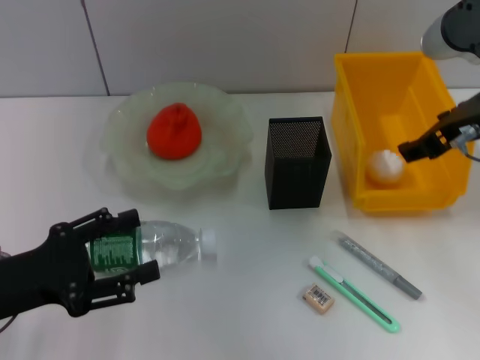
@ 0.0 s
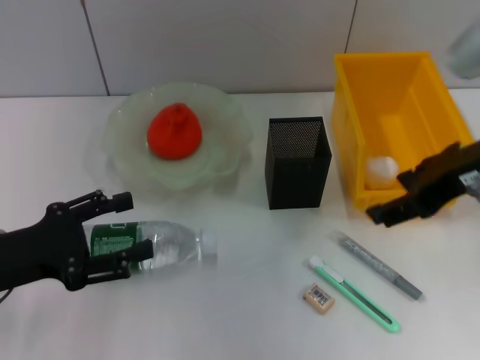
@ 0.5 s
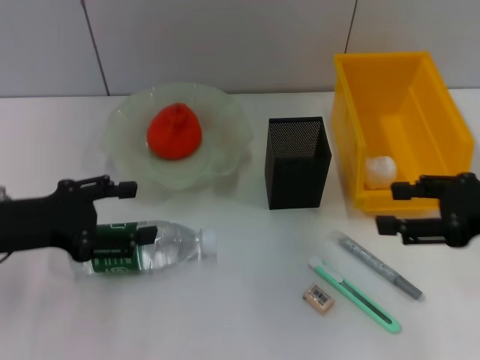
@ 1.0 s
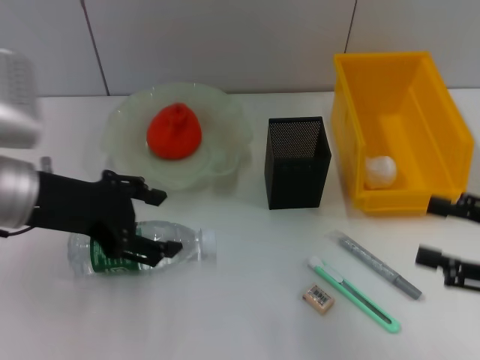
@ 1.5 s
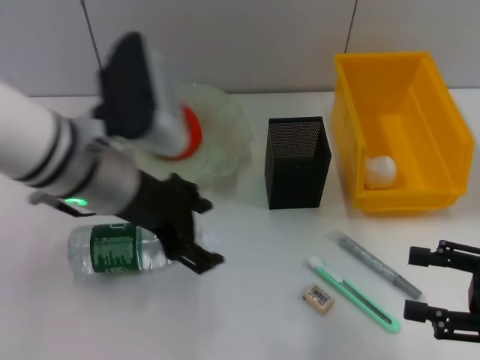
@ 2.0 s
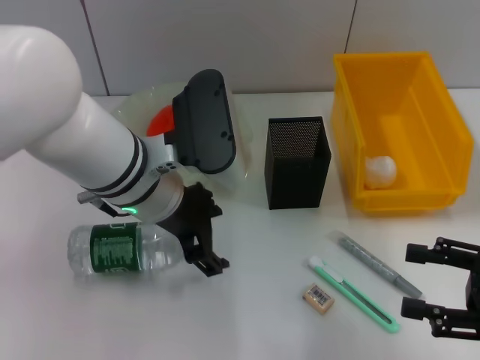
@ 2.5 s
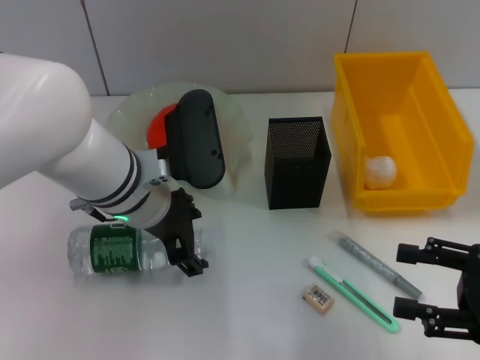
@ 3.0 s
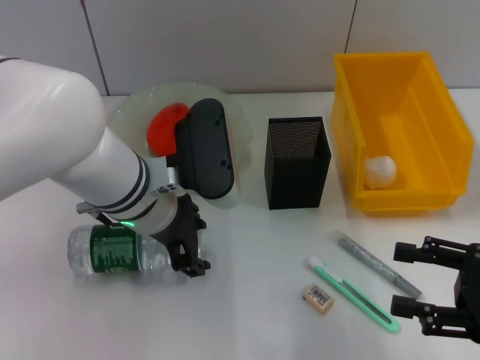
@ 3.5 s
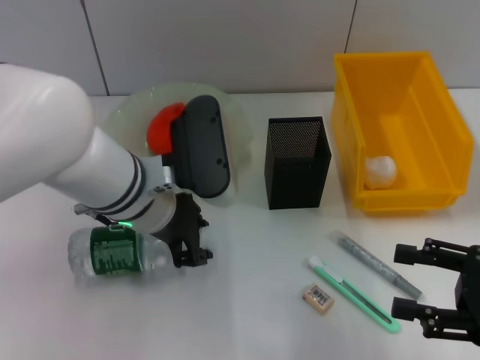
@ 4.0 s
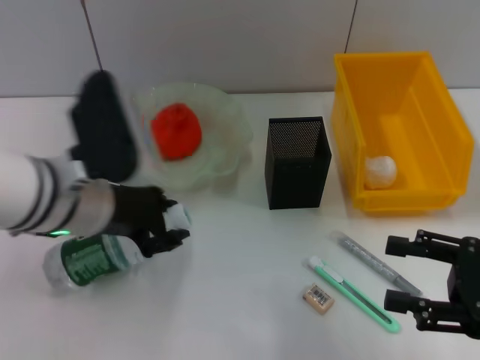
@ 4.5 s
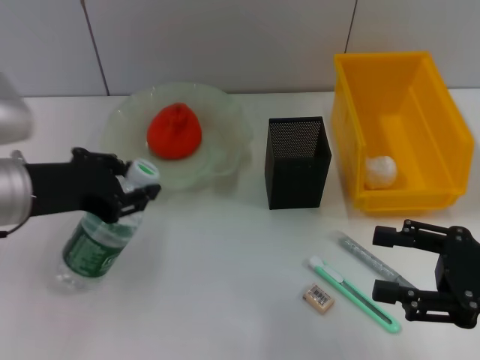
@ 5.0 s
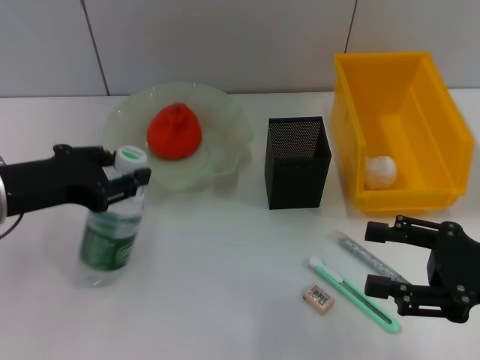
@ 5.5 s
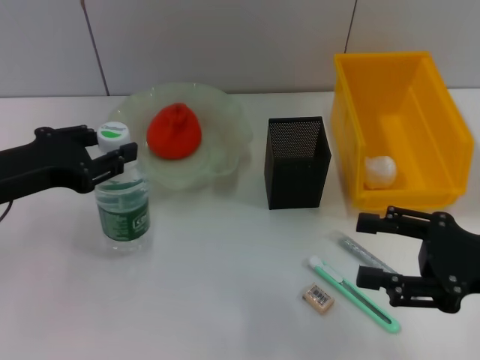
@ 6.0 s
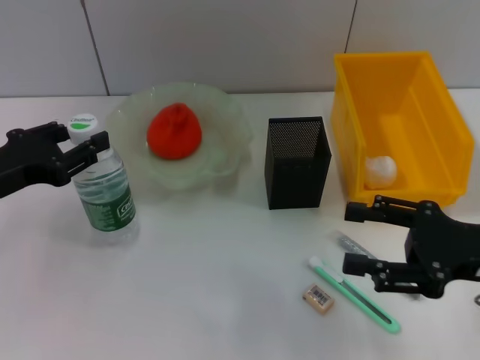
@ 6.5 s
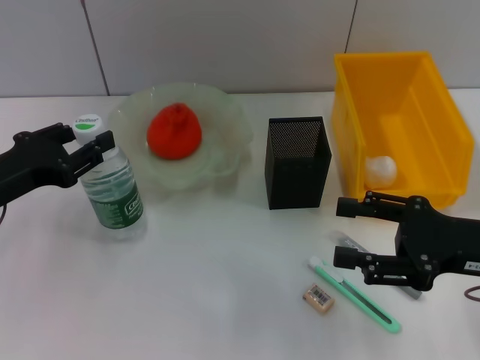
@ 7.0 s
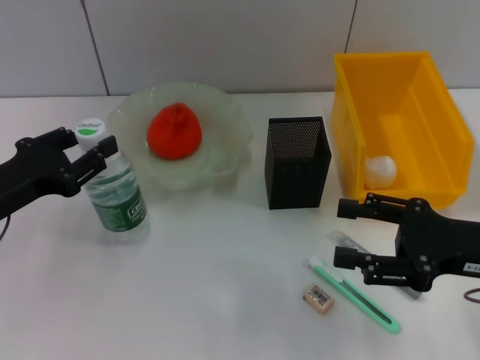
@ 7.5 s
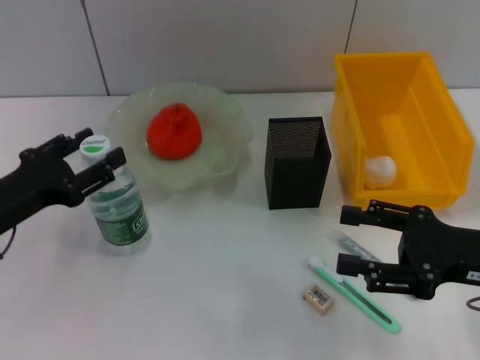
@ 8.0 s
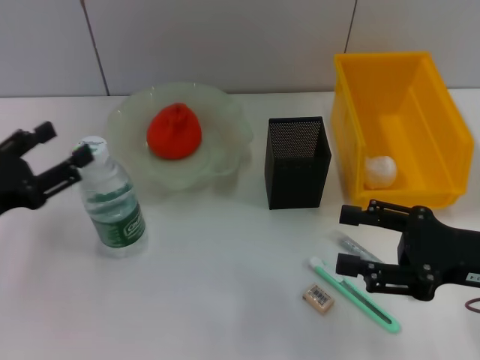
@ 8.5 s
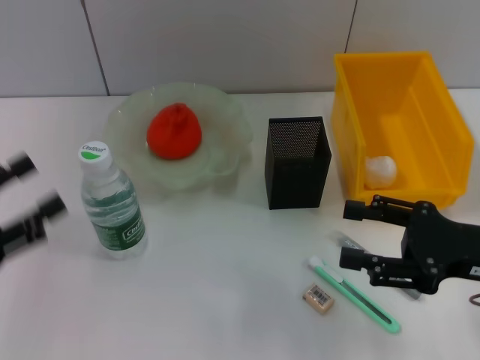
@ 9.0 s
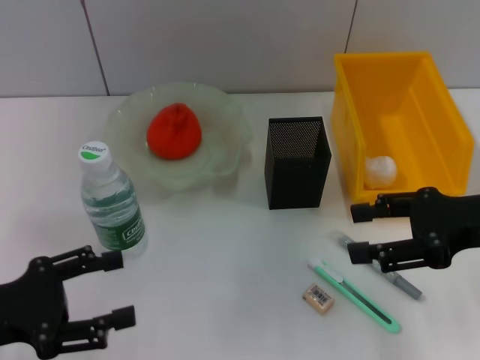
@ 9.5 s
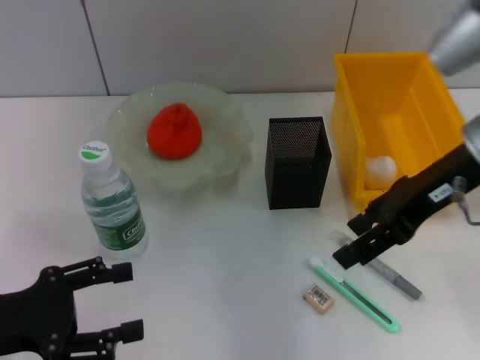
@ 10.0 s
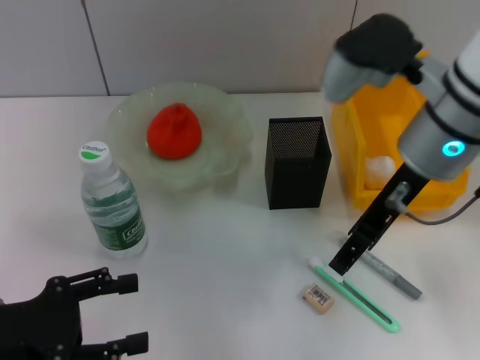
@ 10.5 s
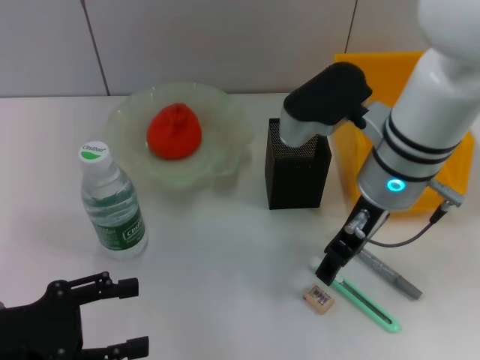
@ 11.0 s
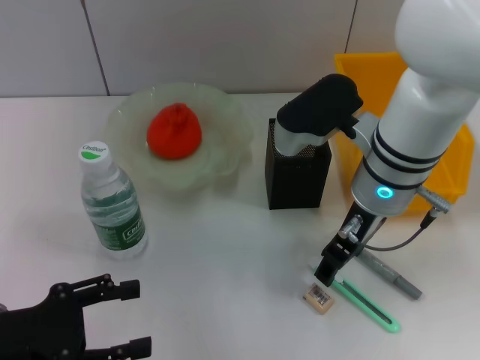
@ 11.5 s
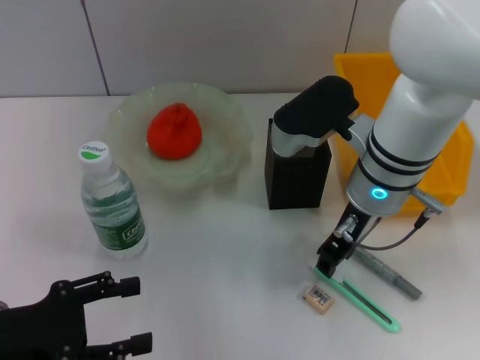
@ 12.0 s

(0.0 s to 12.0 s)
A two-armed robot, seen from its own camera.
Step, 0.0 s - 4.0 s: Grab the water bottle with the left hand.
Step, 4.5 s - 8.0 s: Place the water bottle on the table with the left hand.
0.0 s - 2.0 s: The left gripper moves to the right, forward and upward, about 20 cm. The right gripper heads backward, downward and to the right, covering some 20 cm.
2.0 s - 4.0 s: The left gripper shifts roughly 5 cm downward, and closes its fingers.
4.0 s - 6.0 s: The left gripper moves to the left, some 15 cm.
6.0 s - 8.0 s: The left gripper is displaced downward by approximately 5 cm.
8.0 s - 10.0 s: The right gripper heads upward, forward and to the left, covering roughly 15 cm. The left gripper is displaced backward by about 5 cm.
10.0 s - 12.0 s: The right gripper heads to the left and downward, covering roughly 10 cm, and closes its fingers.

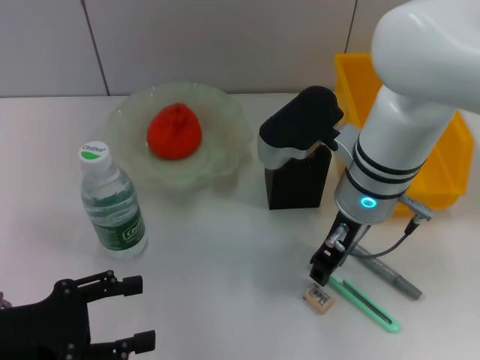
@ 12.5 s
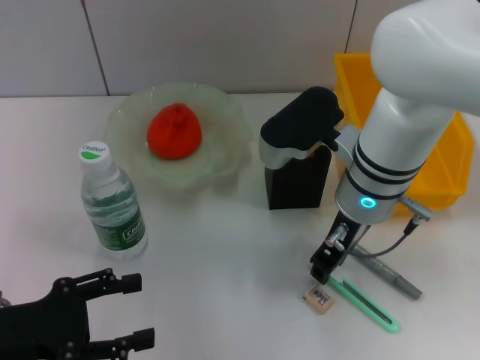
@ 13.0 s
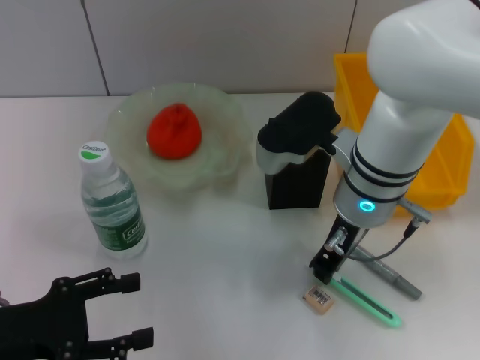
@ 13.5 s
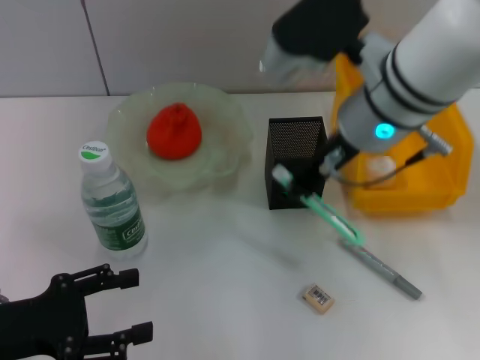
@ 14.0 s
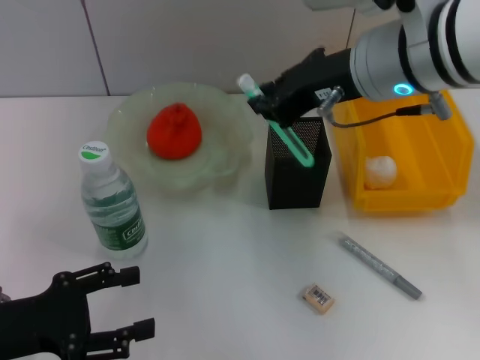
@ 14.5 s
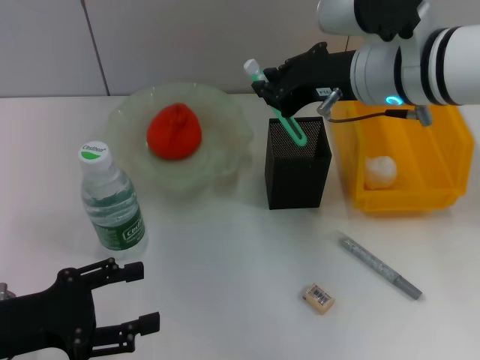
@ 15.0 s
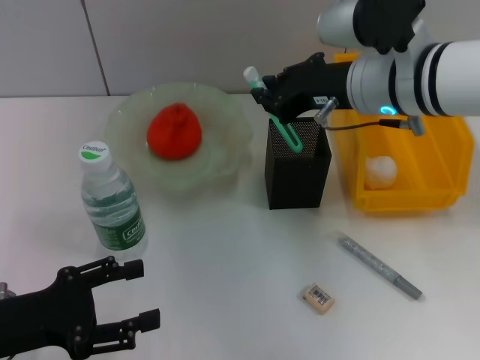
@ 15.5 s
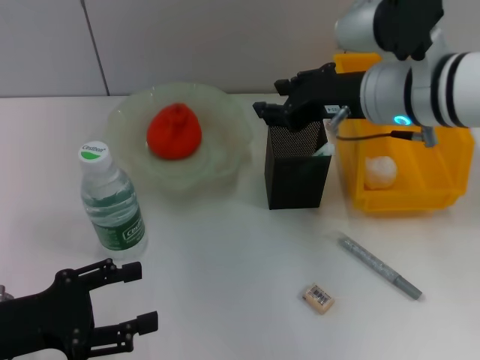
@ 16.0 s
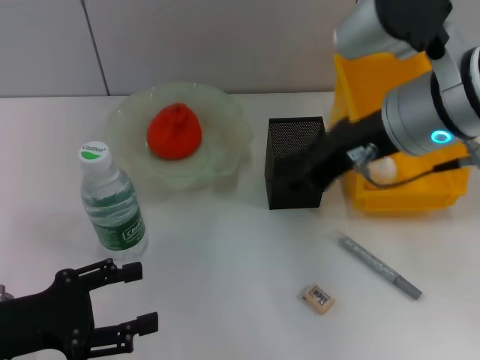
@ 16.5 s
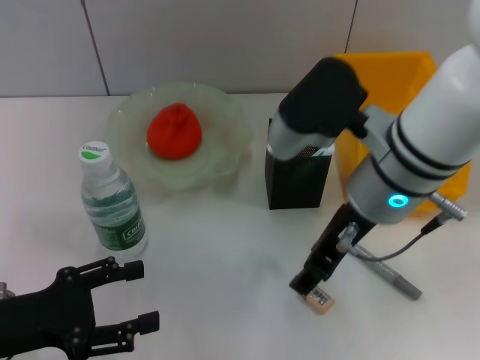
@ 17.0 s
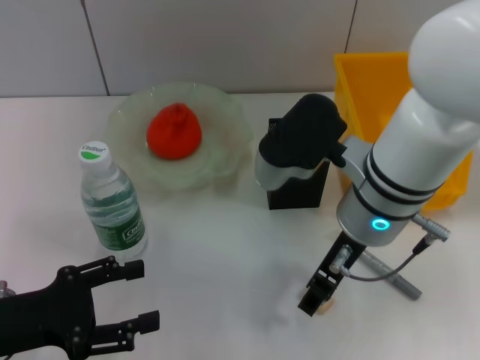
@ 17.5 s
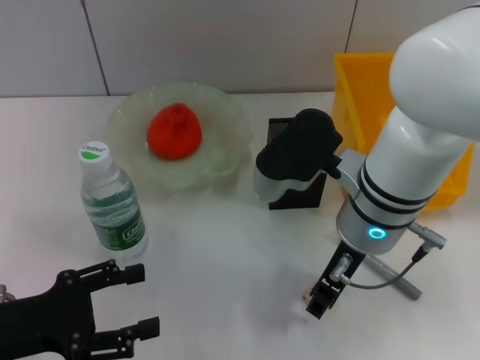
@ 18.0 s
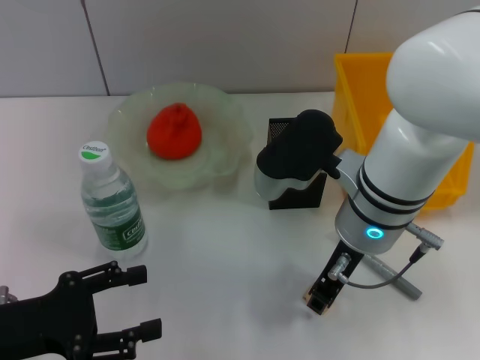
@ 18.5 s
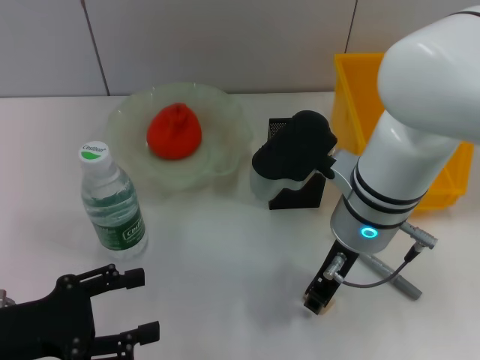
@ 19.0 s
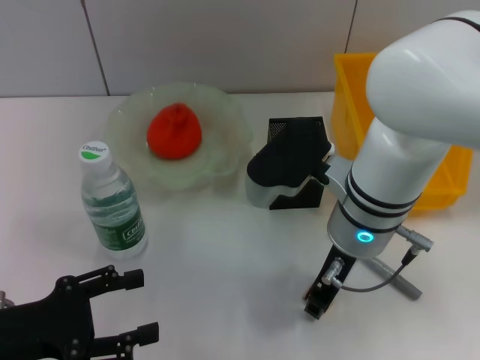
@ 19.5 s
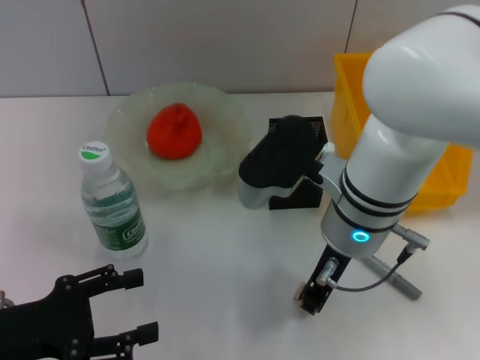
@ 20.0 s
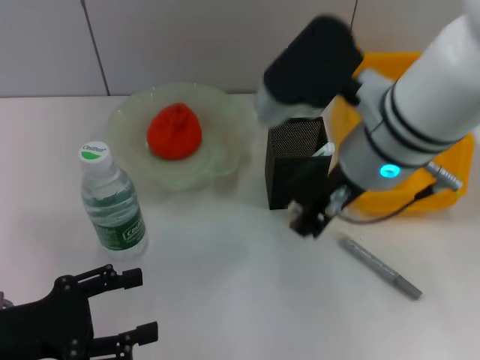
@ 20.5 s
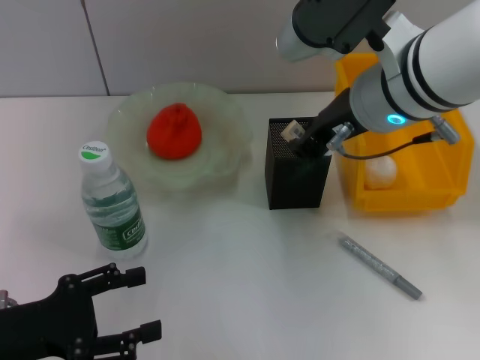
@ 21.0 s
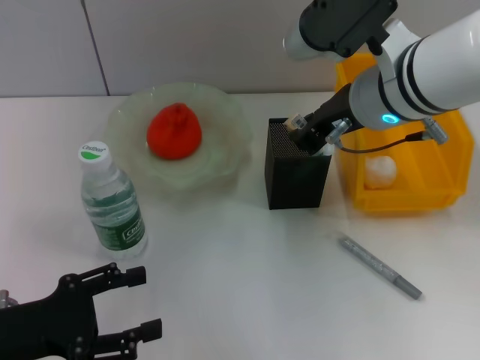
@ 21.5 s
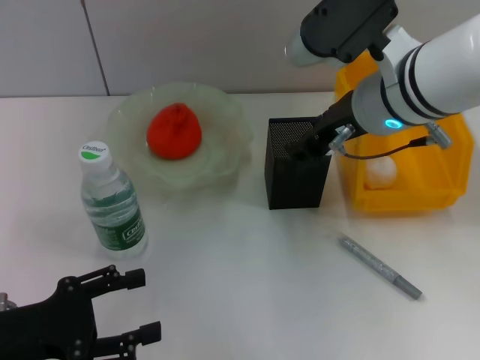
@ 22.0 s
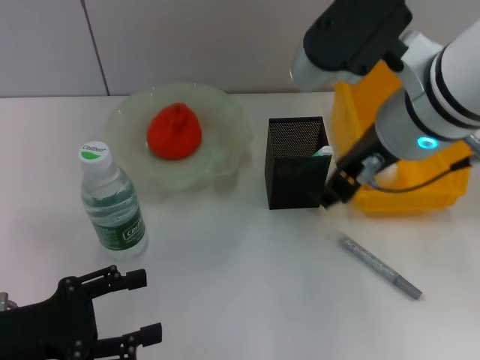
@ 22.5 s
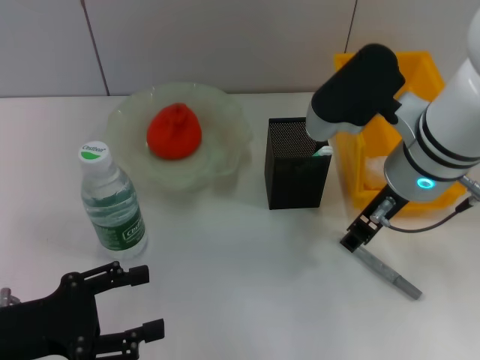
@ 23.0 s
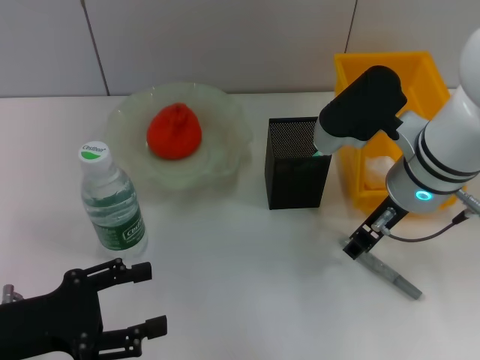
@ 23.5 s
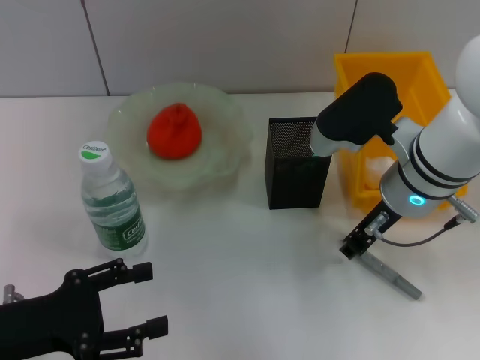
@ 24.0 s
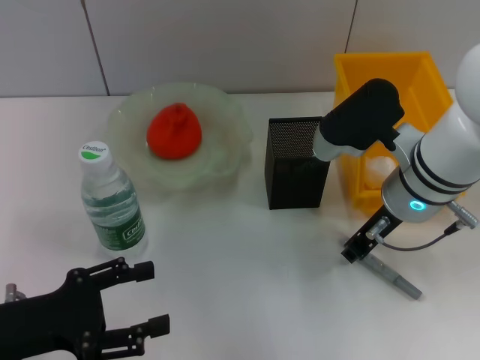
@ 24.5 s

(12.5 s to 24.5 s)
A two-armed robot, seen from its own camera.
Step, 13.5 s - 15.5 s: Place the blue utility knife into the pen holder with the right hand.
Step, 16.0 s - 19.5 s: Grab the eraser with the right hand.
Step, 20.5 s - 21.5 s: Put the eraser into the pen holder with the right hand.
12.5 s - 14.5 s: The right gripper shifts some 10 cm upward, and closes up.
14.5 s - 16.5 s: The right gripper opens up.
16.5 s - 18.5 s: The right gripper travels downward by roughly 10 cm, and opens and closes again.
18.5 s - 20.5 s: The right gripper heads upward, covering about 10 cm.
20.5 s - 22.5 s: The right gripper opens its fingers.
22.5 s - 24.5 s: The right gripper goes roughly 10 cm downward.

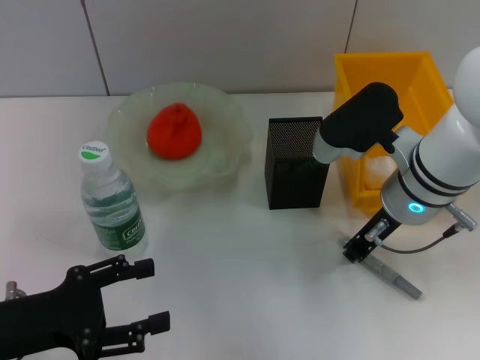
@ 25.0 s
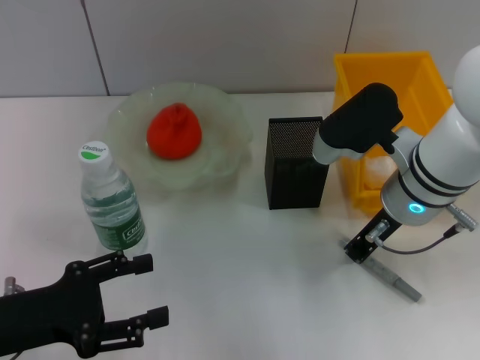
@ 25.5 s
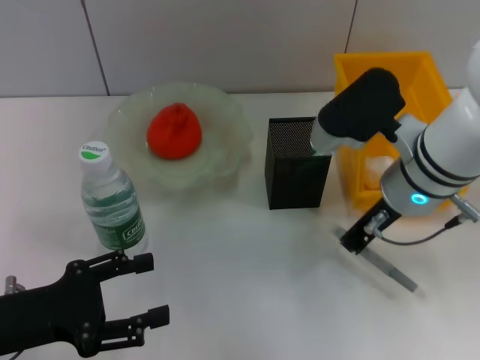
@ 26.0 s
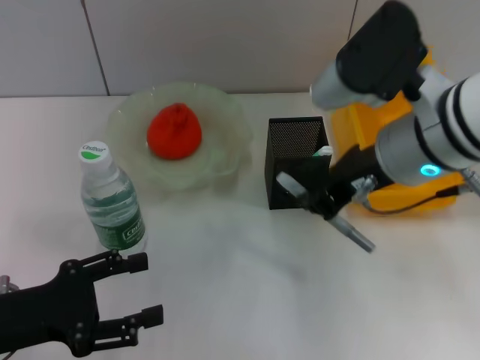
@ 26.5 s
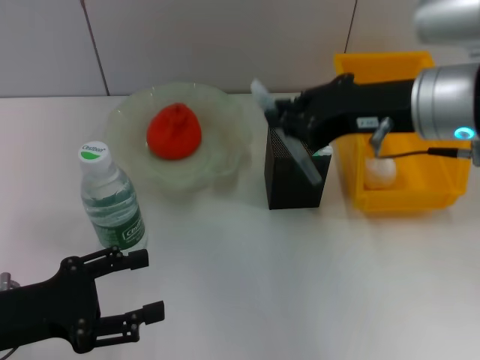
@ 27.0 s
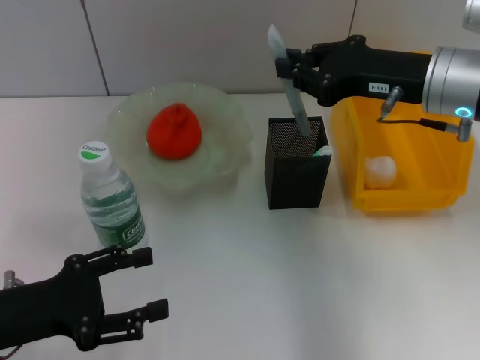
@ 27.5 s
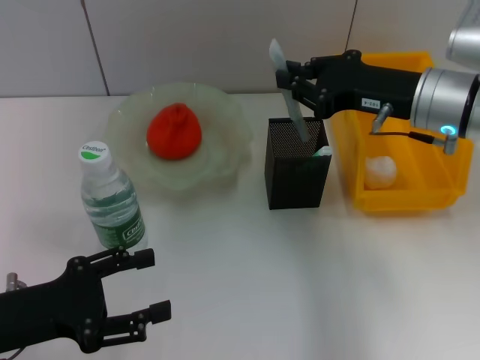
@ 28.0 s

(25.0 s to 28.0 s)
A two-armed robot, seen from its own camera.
25.0 s - 26.5 s: The right gripper heads upward, covering roughly 10 cm.
26.5 s - 28.0 s: The right gripper goes approximately 10 cm to the right, forward and downward.
